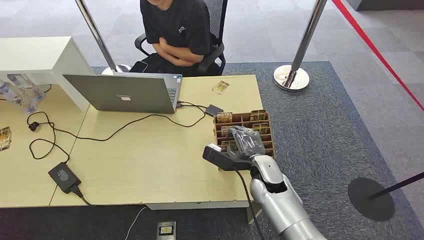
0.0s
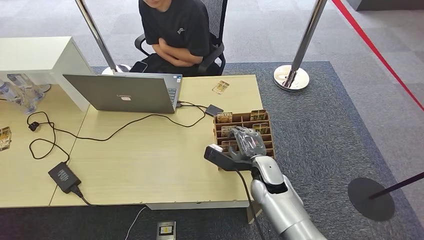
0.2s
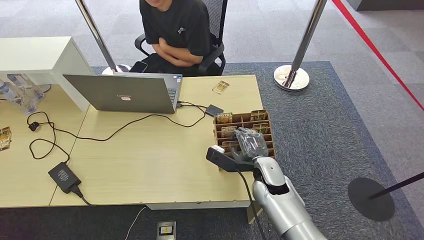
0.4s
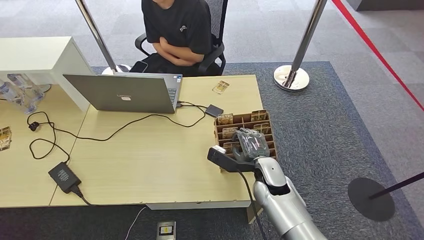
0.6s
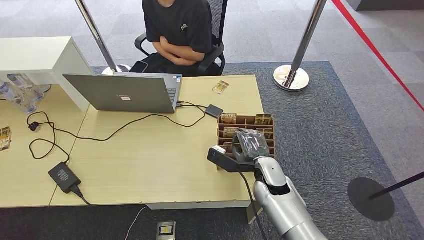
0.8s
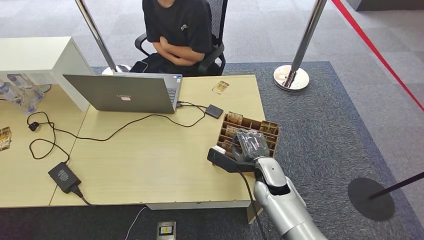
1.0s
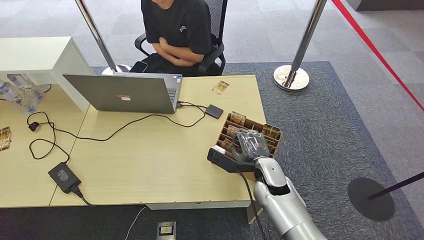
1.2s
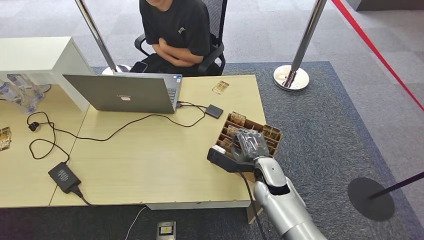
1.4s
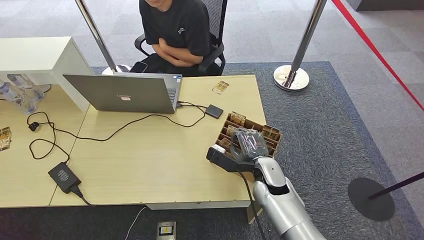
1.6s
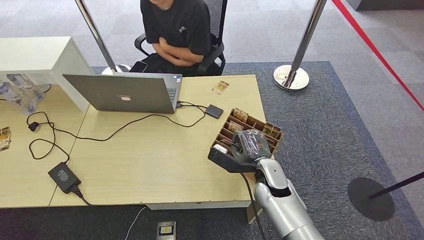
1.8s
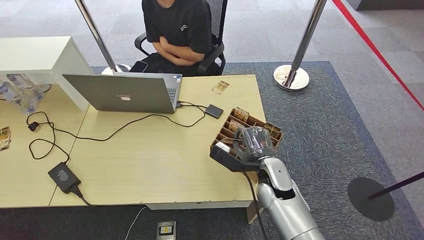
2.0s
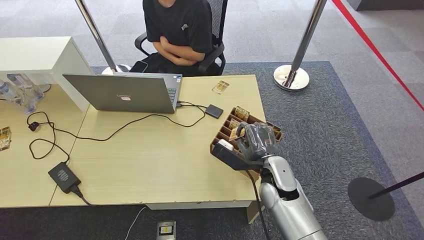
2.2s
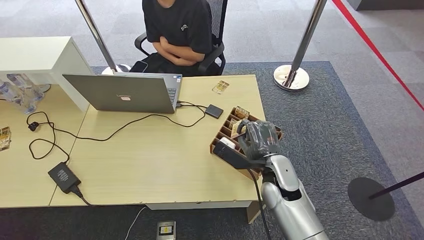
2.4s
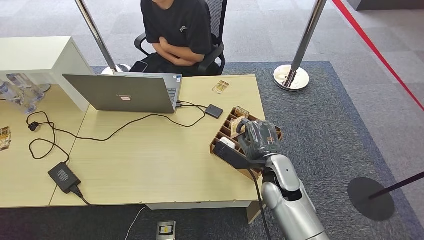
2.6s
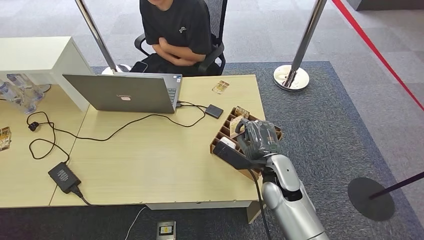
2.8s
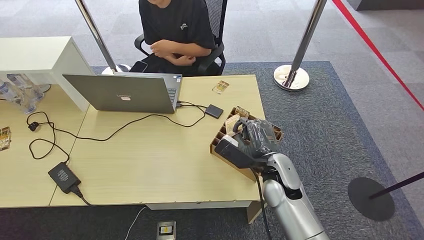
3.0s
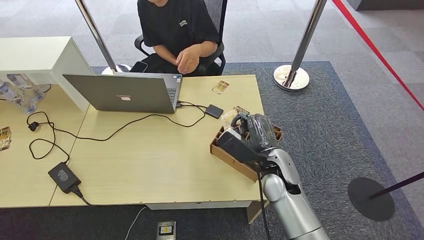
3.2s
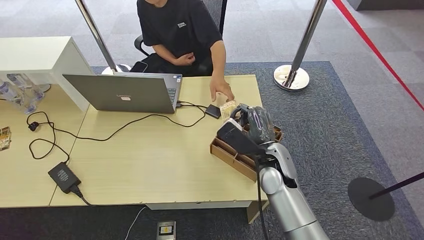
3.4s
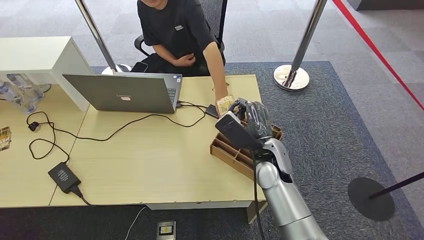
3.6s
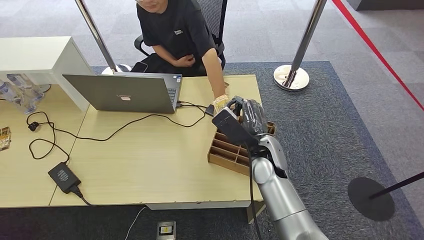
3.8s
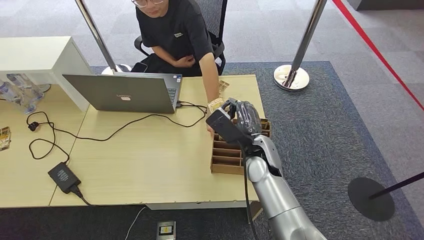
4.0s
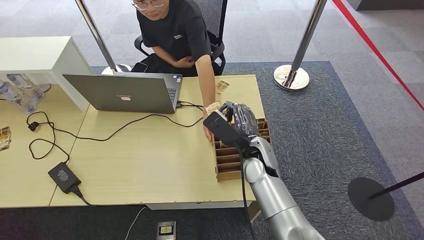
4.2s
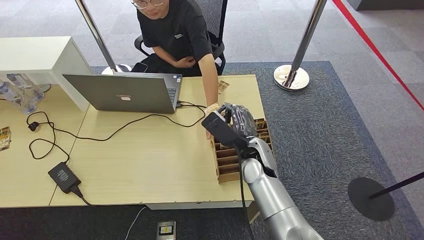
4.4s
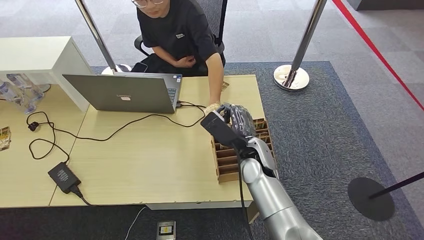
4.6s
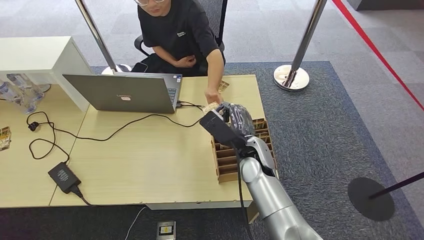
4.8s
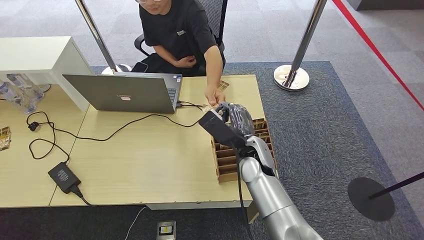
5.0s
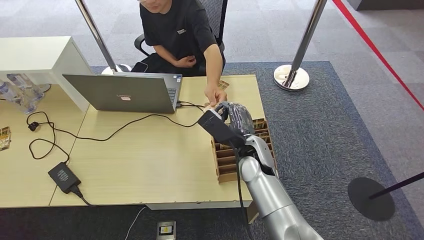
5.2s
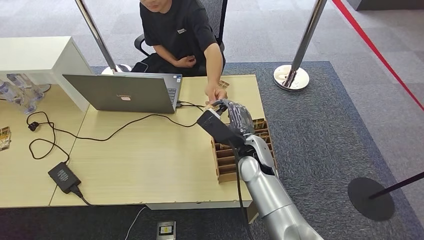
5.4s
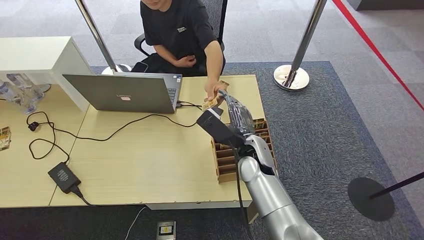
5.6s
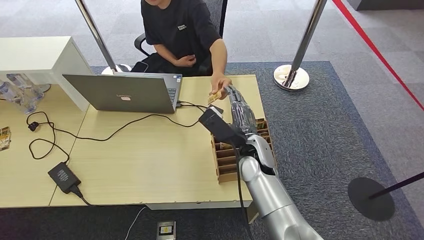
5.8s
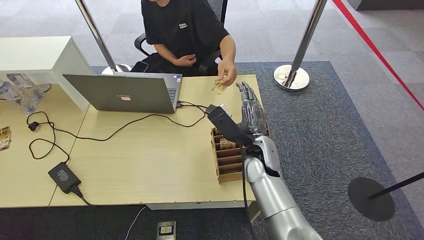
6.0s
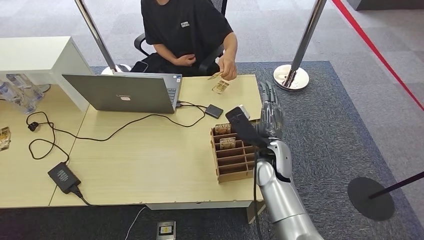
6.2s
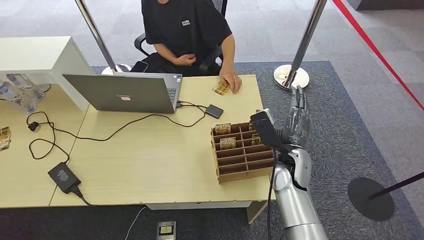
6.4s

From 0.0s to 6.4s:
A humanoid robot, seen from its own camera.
Step, from 0.0s to 2.8s: Pick up the key card from the card box.
Step, from 3.0s to 6.4s: Hand the key card to the target.
From 1.6s to 3.2s: The right hand shifts about 5 cm upward.
From 3.2s to 4.8s: The right hand changes place by roughly 5 cm.
From 4.8s to 6.4s: The right hand heads to the right, covering about 5 cm.
